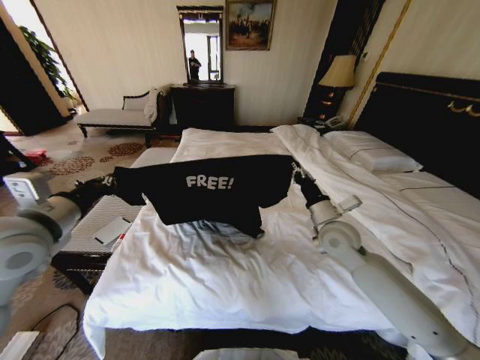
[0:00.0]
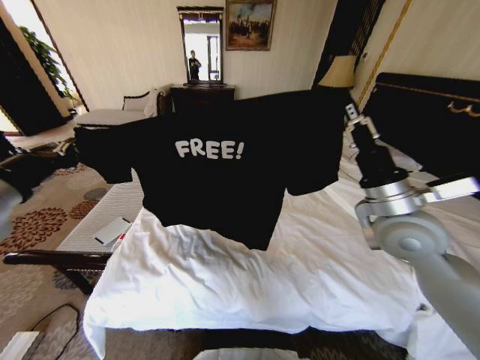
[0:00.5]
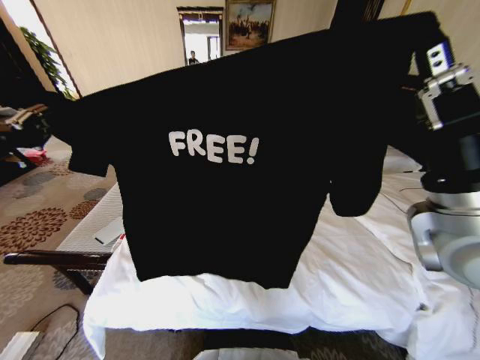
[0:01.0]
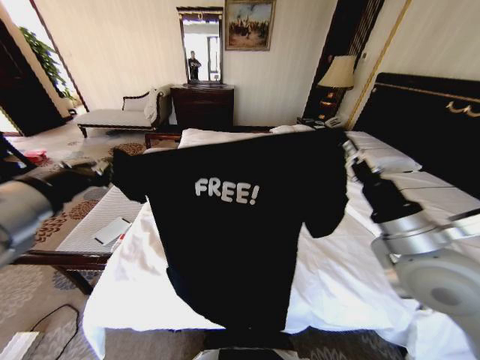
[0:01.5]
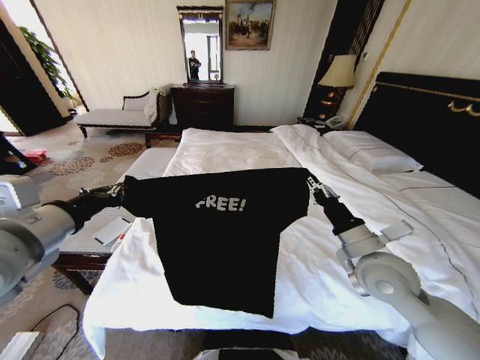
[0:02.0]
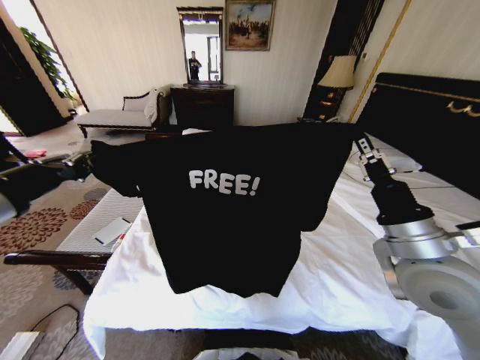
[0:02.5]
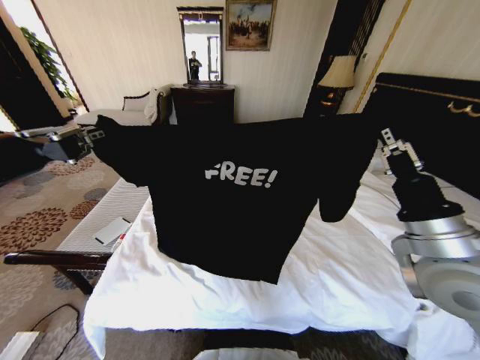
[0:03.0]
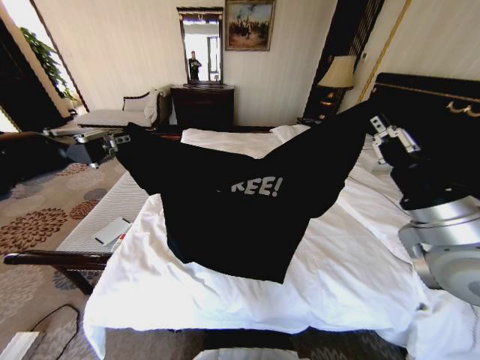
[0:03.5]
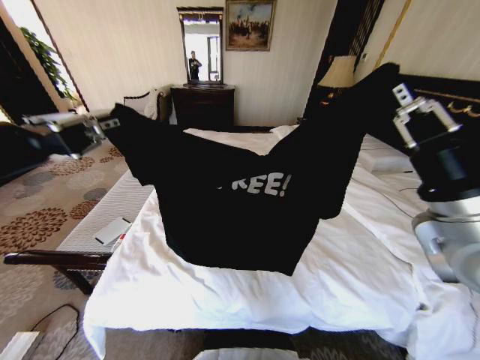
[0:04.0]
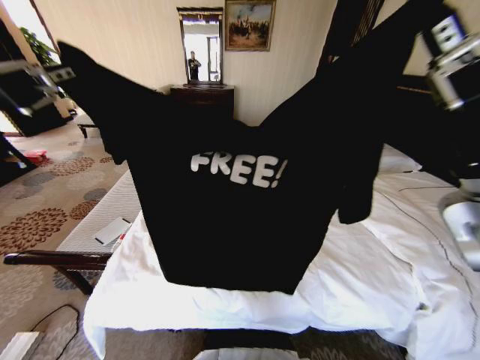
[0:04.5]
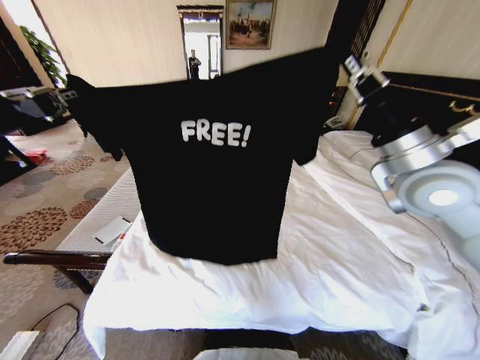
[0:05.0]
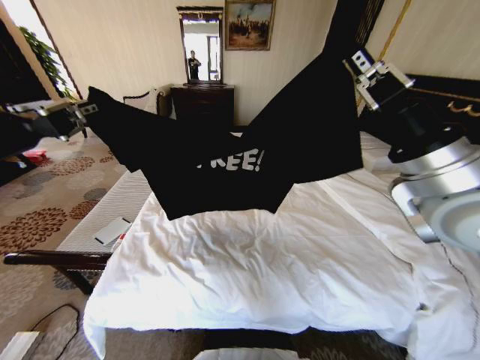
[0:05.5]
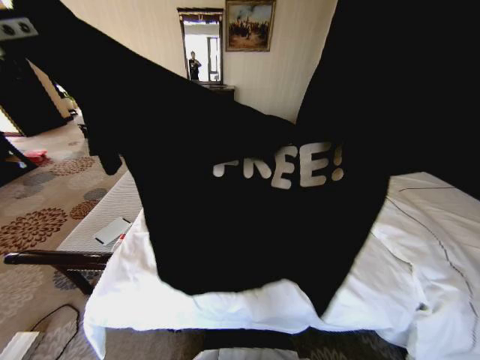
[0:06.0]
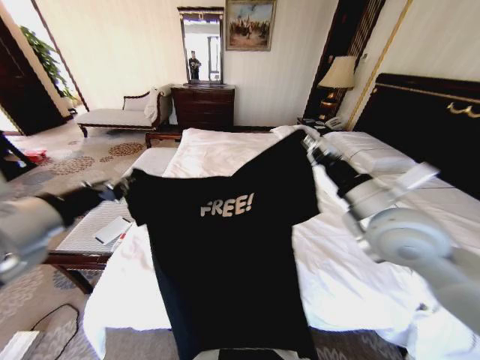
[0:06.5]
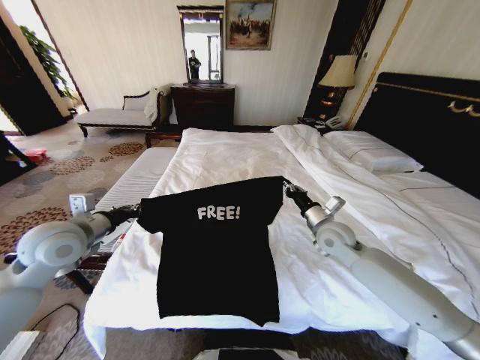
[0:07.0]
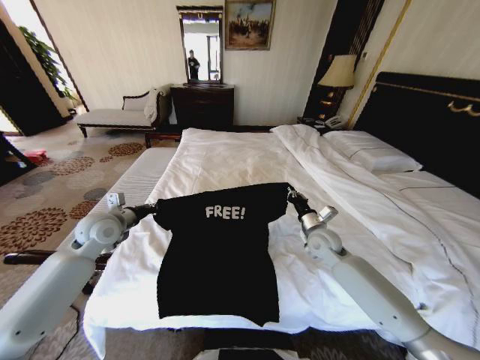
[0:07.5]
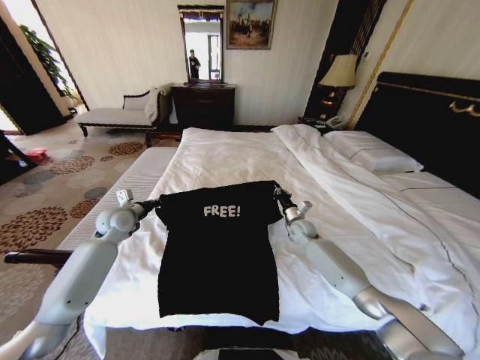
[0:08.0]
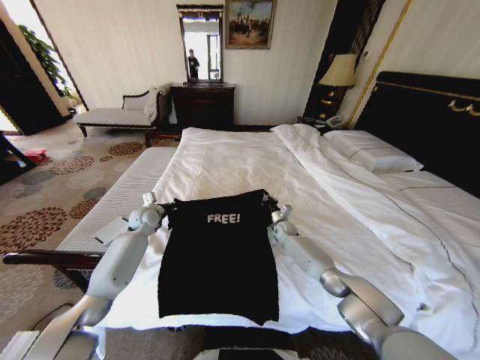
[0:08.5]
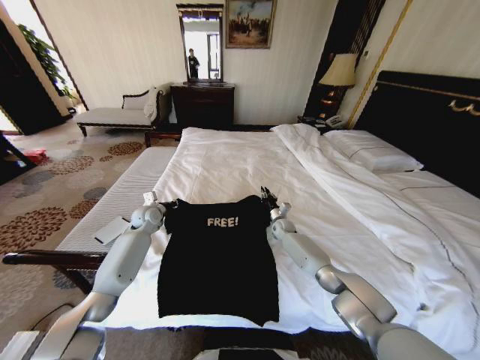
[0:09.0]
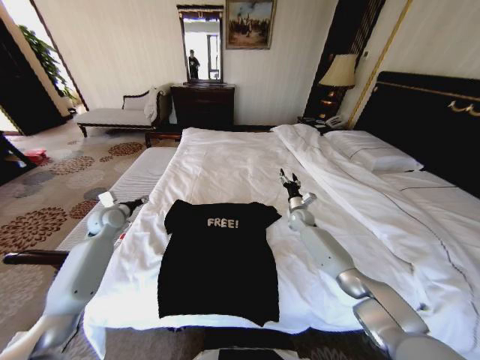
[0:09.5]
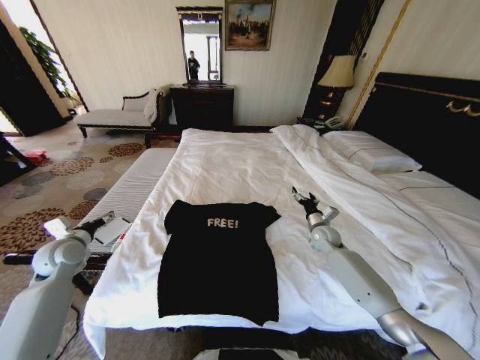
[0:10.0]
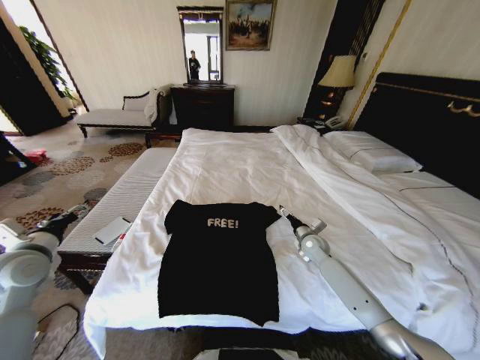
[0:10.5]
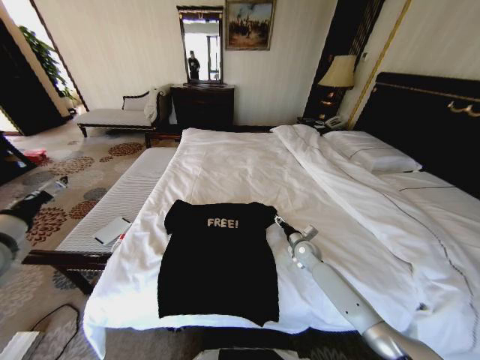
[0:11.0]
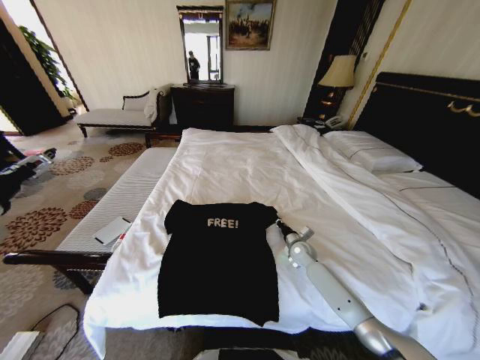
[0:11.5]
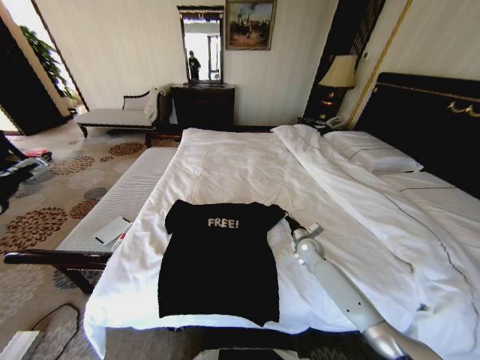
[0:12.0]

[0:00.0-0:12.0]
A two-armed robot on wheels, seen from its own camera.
Task of the whole recording: Fold the clothes on the bed.
0:00.0 to 0:02.0: The right gripper shifts approximately 10 cm backward, and reaches approximately 20 cm upward, then returns. The left gripper goes upward and returns, some 10 cm each way.
0:02.0 to 0:04.0: The left gripper goes approximately 15 cm upward and backward. Meanwhile the right gripper shifts some 15 cm upward.
0:04.0 to 0:06.0: The right gripper shifts approximately 15 cm upward, and goes forward and returns, about 10 cm each way, while the left gripper changes place by some 5 cm.
0:06.0 to 0:08.0: Both grippers travel together downward and forward, about 50 cm.
0:08.0 to 0:10.0: The right gripper is displaced to the right by about 5 cm, and opens its fingers, while the left gripper is displaced to the left and backward by roughly 15 cm, and opens its fingers.
0:10.0 to 0:12.0: The right gripper ends up roughly 5 cm from where it was, and closes its fingers. The left gripper is displaced upward and backward by about 20 cm.

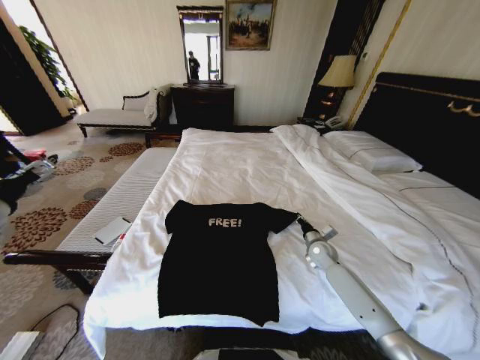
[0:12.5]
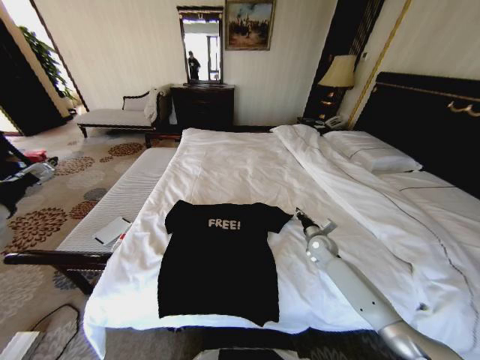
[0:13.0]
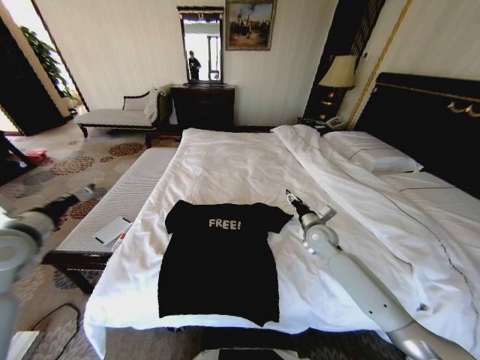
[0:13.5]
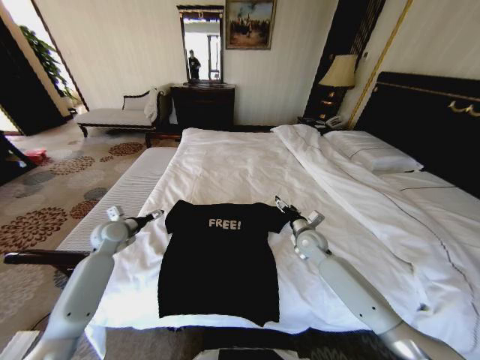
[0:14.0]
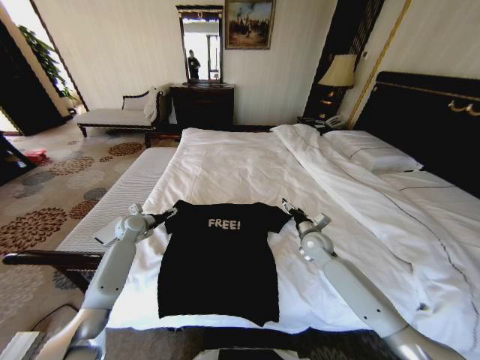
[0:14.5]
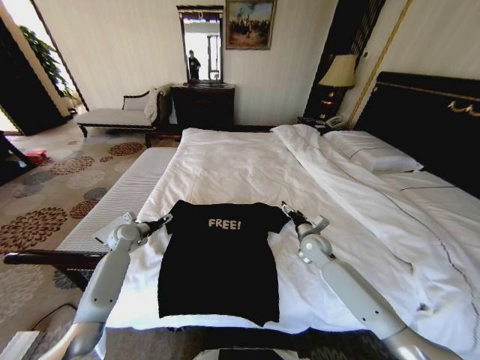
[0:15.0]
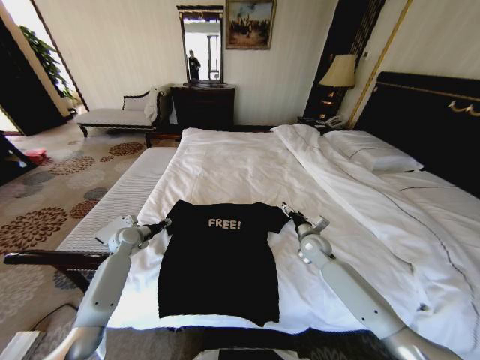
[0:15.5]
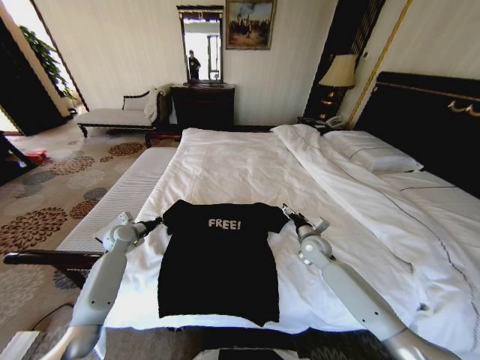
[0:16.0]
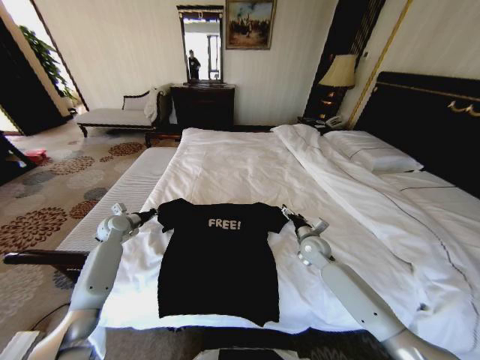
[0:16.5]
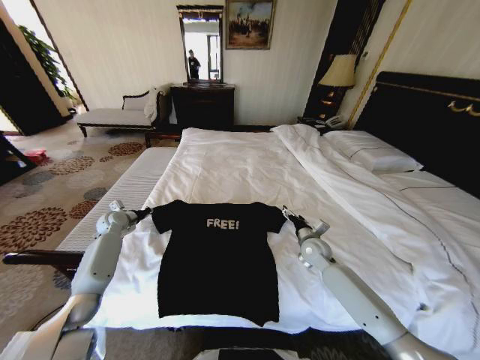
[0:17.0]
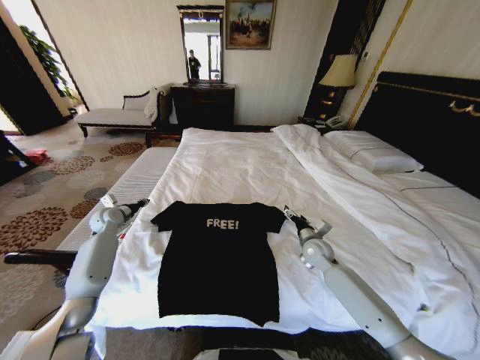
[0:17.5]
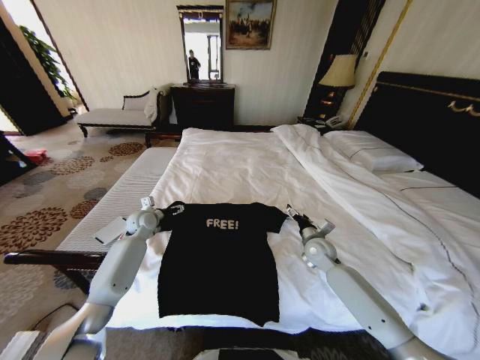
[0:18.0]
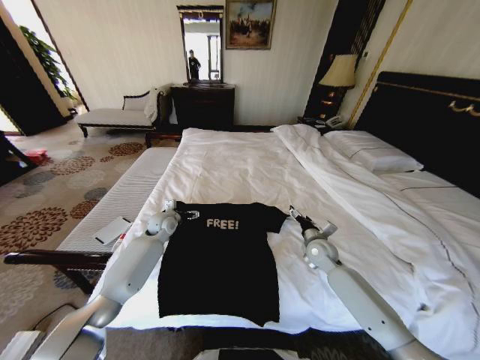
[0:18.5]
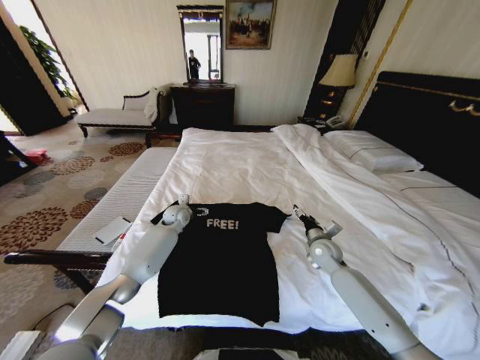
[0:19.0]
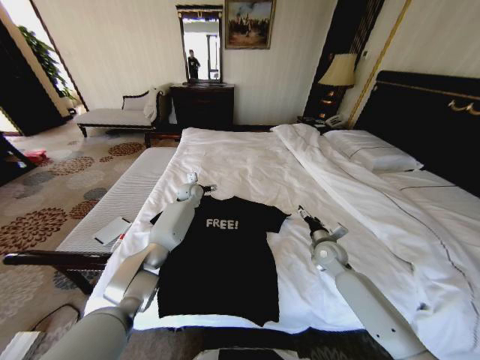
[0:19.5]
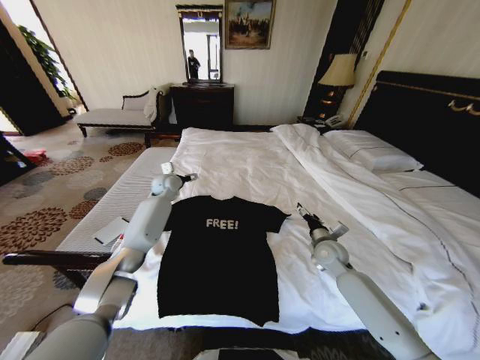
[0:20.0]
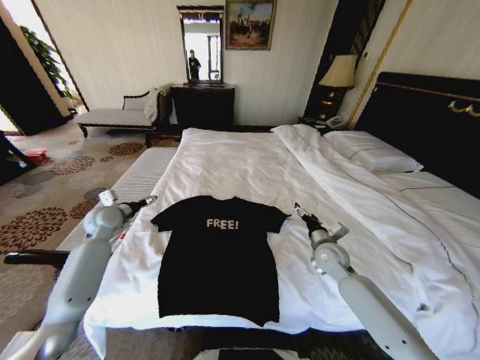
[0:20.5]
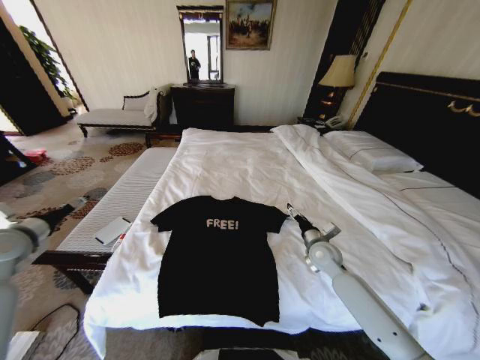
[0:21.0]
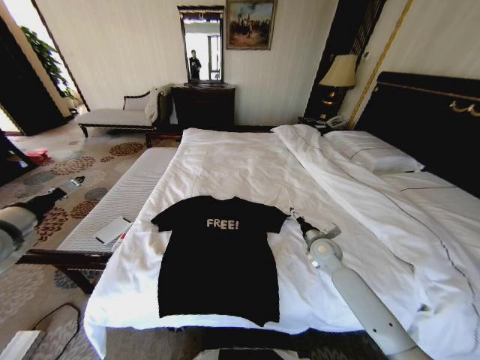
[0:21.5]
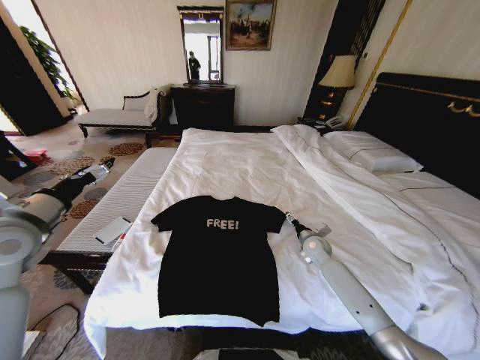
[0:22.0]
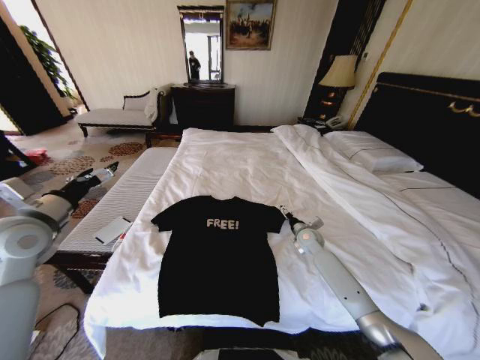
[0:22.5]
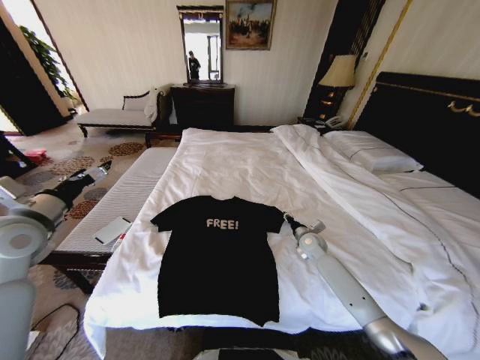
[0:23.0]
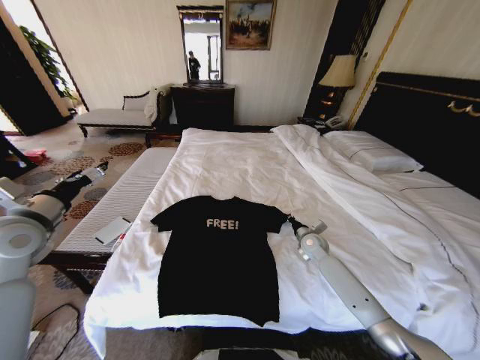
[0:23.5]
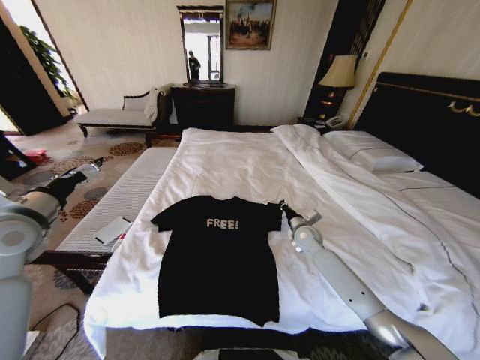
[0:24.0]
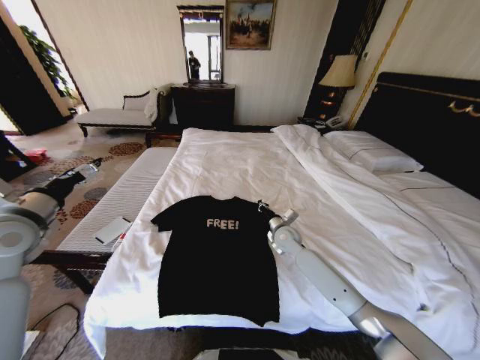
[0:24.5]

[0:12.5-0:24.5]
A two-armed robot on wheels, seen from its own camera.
Task of the whole recording: Fold the clothes on the bed.
0:12.5 to 0:14.5: The right gripper travels upward by about 5 cm, and opens up; the left gripper goes roughly 35 cm downward and forward.
0:14.5 to 0:16.5: The left gripper ends up roughly 5 cm from where it was, and closes its fingers.
0:16.5 to 0:18.5: The left gripper travels to the right by some 15 cm, and opens.
0:18.5 to 0:20.5: The left gripper travels to the left and upward by some 15 cm.
0:20.5 to 0:22.5: The left gripper heads backward and upward, covering roughly 20 cm. Meanwhile the right gripper heads forward and downward, covering some 10 cm.
0:22.5 to 0:24.5: The right gripper goes about 10 cm to the left, and closes up.

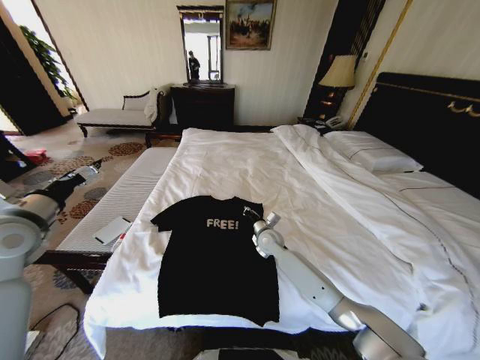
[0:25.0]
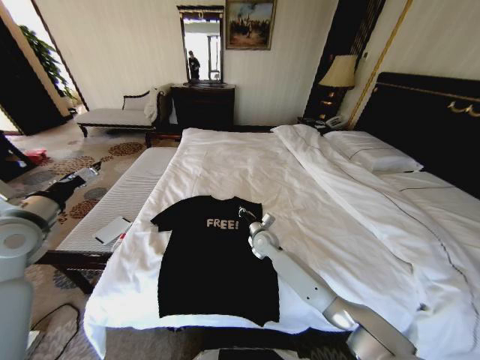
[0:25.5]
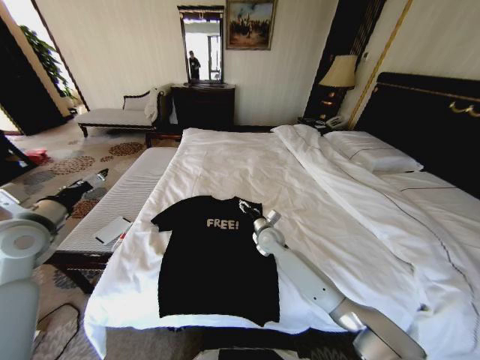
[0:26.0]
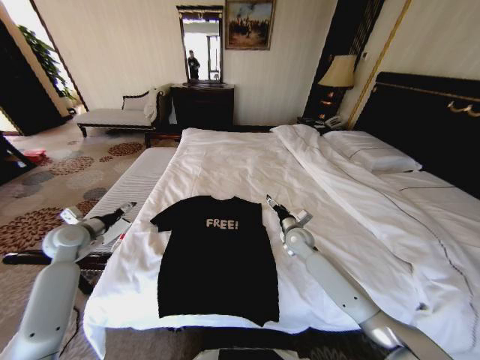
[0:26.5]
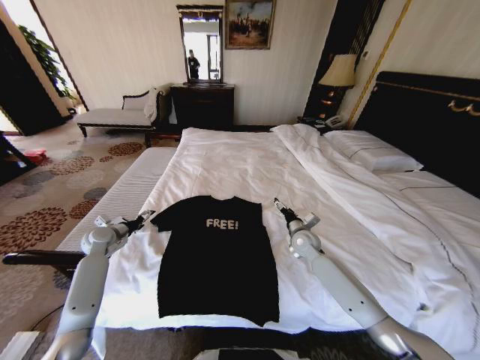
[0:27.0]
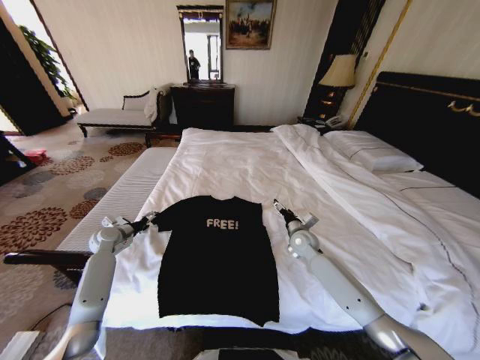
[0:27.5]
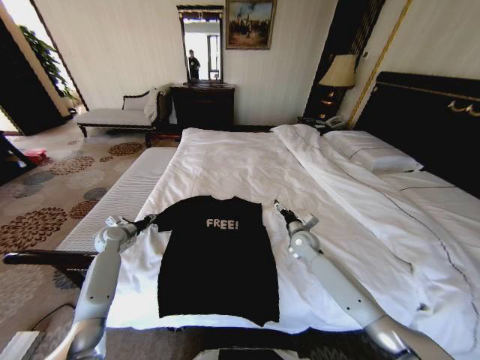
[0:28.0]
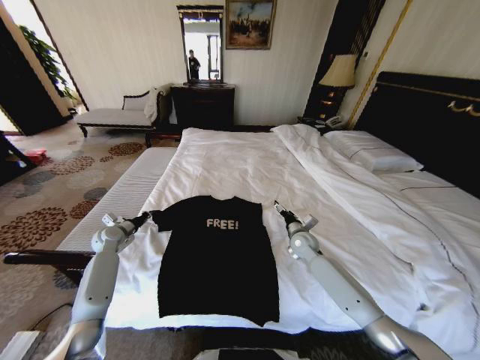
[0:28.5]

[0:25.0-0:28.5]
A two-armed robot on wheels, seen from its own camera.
Task of the whole recording: Fold the clothes on the bed.
0:25.0 to 0:27.0: The left gripper goes roughly 25 cm downward and forward; the right gripper goes approximately 10 cm to the right, and opens its fingers.
0:27.0 to 0:28.5: The left gripper closes.
